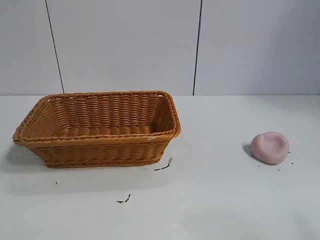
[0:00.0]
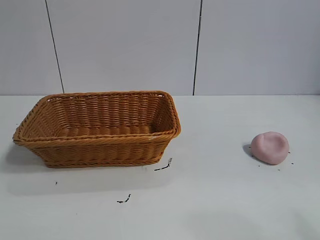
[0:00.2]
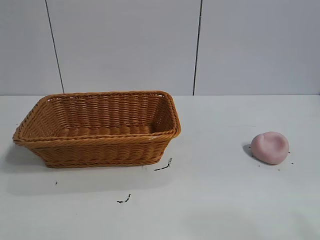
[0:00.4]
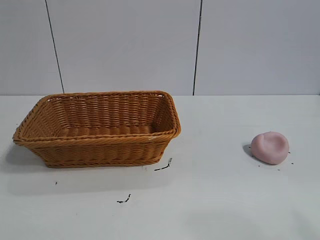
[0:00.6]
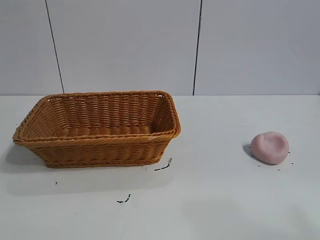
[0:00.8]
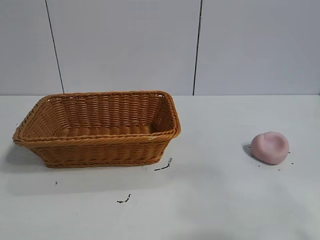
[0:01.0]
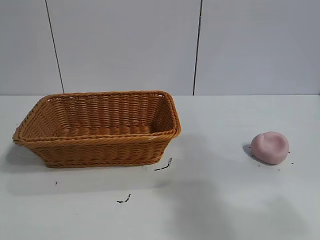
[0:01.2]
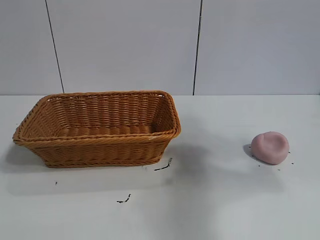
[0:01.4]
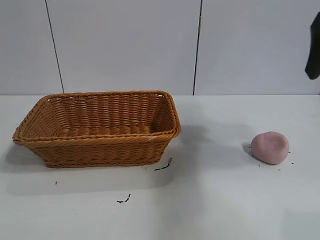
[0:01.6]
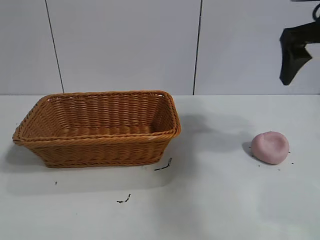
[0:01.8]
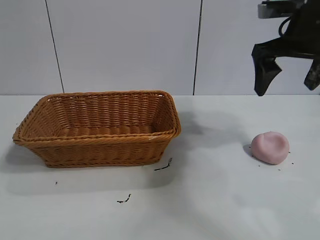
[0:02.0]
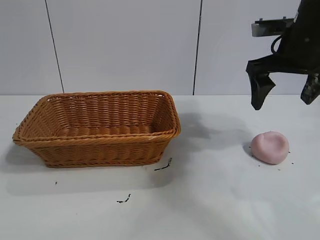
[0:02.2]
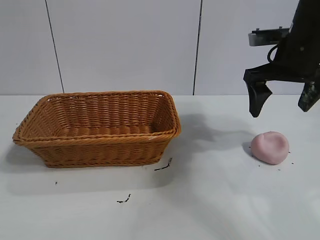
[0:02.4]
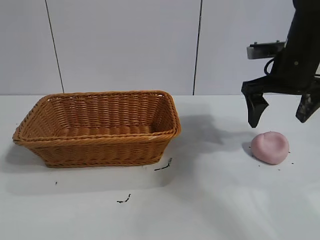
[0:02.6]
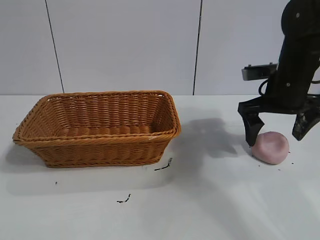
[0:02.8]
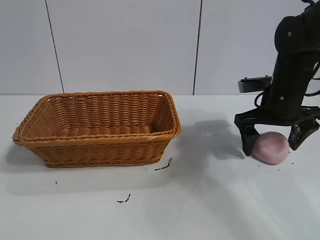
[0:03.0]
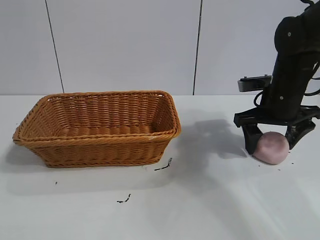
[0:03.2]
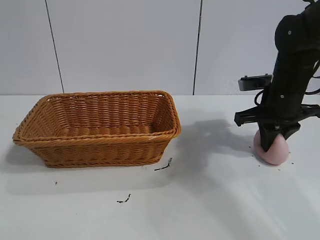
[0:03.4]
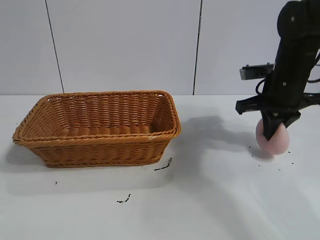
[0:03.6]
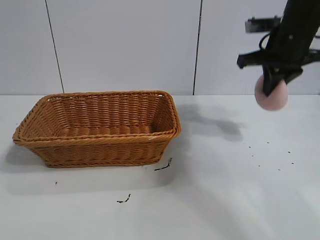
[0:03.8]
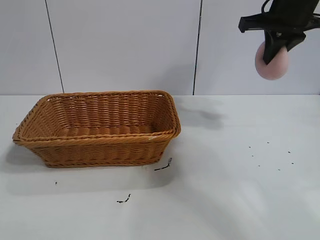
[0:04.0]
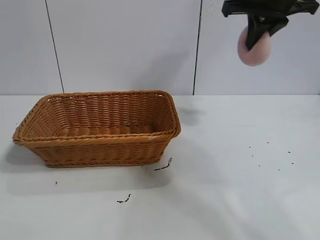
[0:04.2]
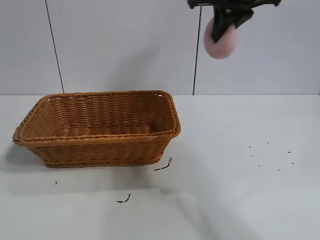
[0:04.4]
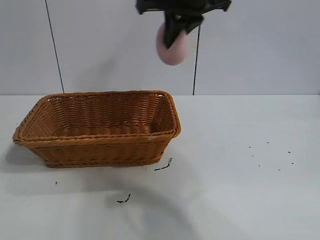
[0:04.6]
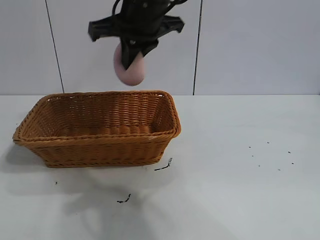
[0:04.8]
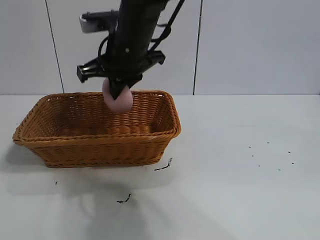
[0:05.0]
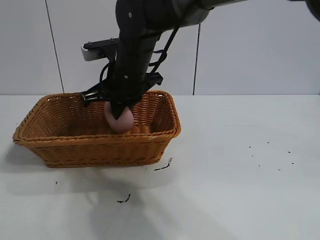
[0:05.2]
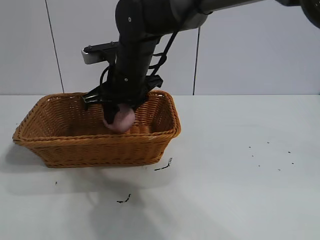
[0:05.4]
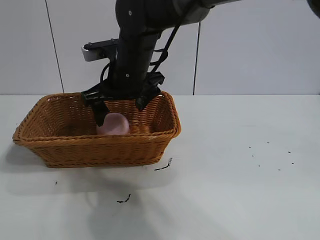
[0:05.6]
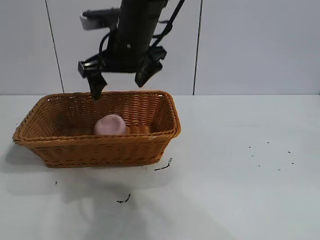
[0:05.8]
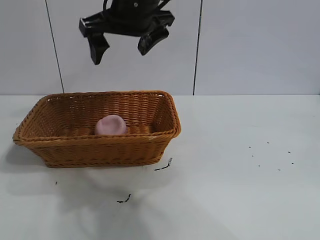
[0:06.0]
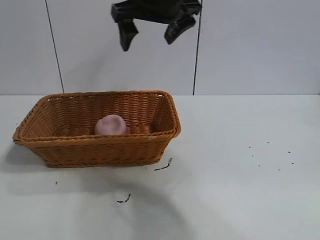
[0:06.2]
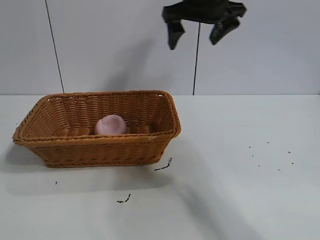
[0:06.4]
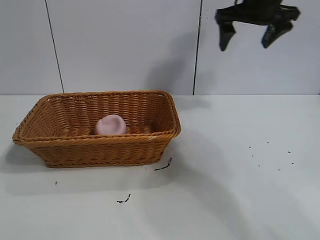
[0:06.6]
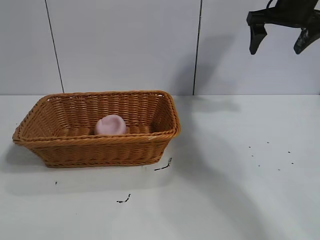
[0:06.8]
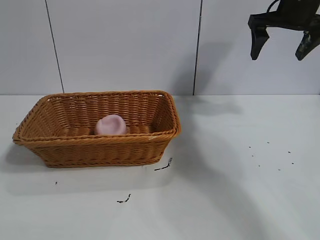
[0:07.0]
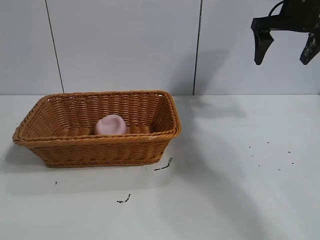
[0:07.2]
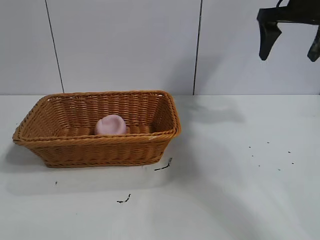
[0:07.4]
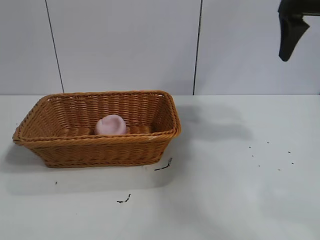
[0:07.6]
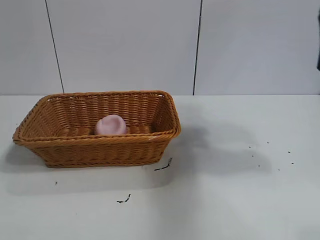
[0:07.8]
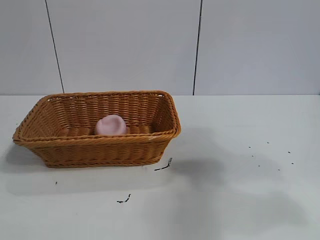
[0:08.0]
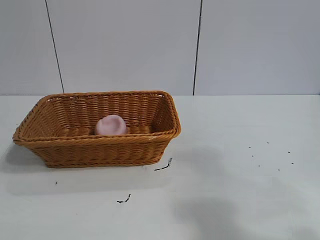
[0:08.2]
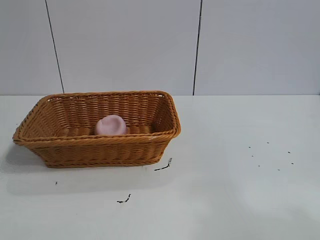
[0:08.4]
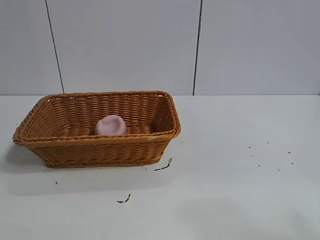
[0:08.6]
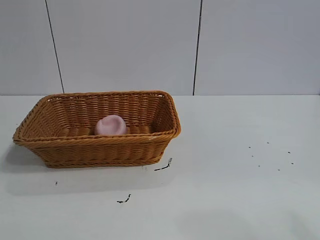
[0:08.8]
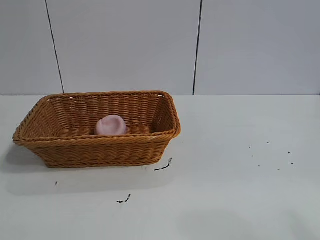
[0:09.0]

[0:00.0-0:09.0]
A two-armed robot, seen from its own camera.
Task of the whole recording: pick up the peach and put it into the basket.
Step, 0:00.6 to 0:03.4: Grasp the peach with right gripper.
Step, 0:03.6 to 0:05.4: Place the peach in the basket with right gripper.

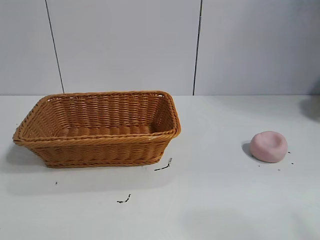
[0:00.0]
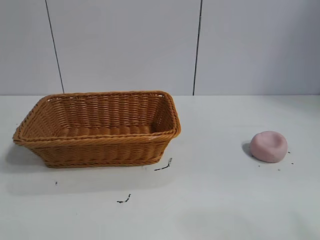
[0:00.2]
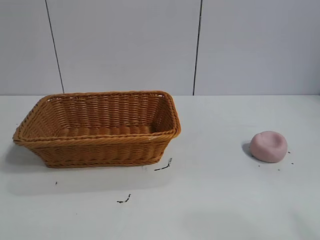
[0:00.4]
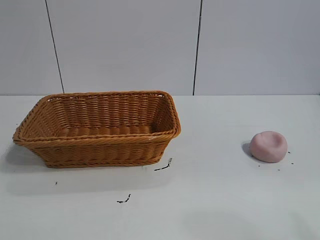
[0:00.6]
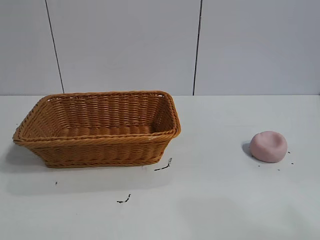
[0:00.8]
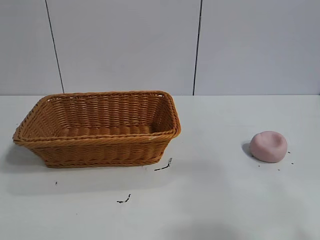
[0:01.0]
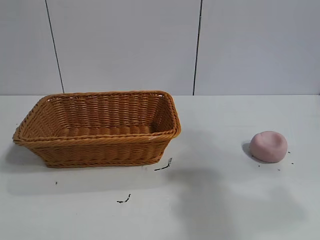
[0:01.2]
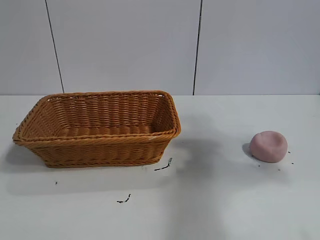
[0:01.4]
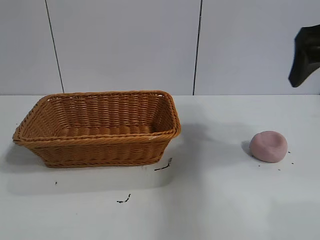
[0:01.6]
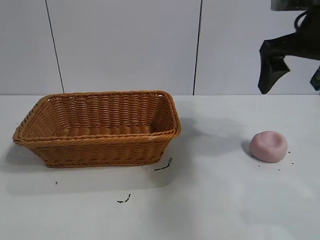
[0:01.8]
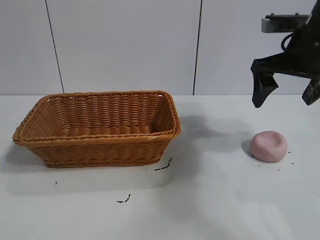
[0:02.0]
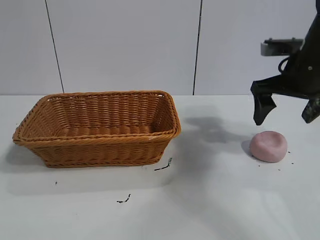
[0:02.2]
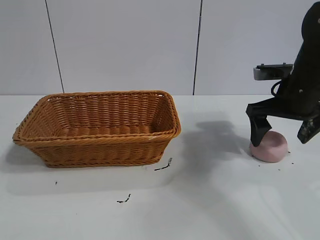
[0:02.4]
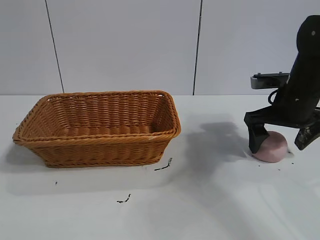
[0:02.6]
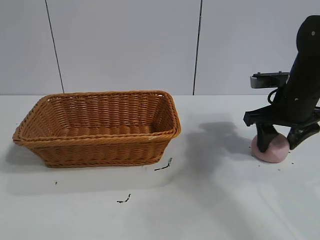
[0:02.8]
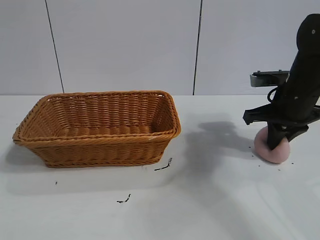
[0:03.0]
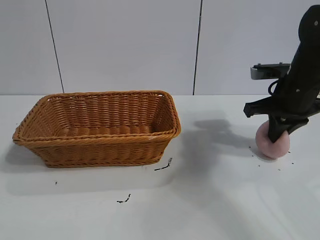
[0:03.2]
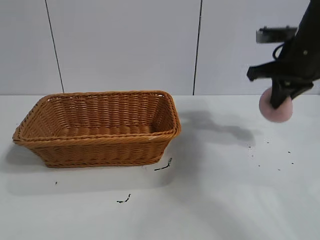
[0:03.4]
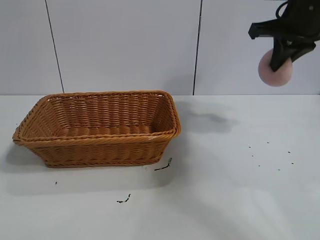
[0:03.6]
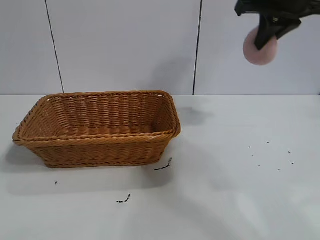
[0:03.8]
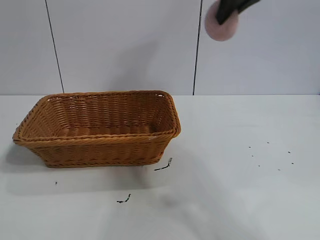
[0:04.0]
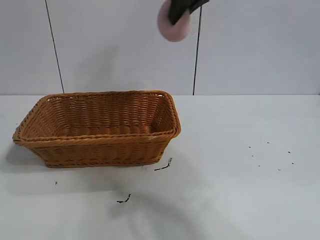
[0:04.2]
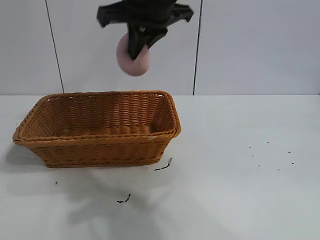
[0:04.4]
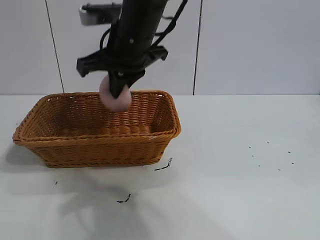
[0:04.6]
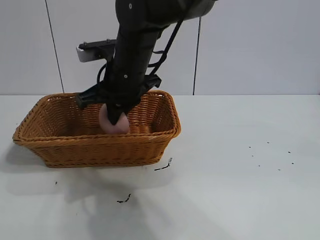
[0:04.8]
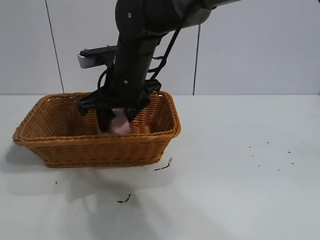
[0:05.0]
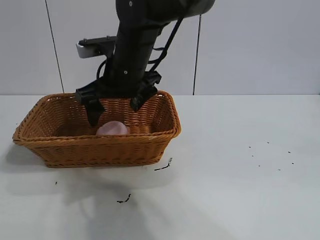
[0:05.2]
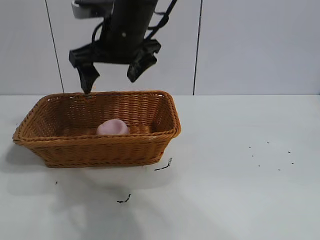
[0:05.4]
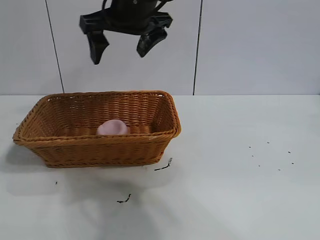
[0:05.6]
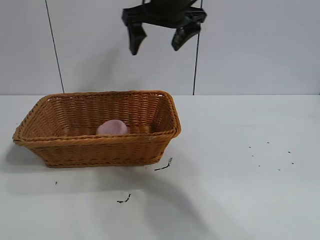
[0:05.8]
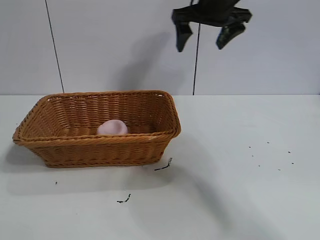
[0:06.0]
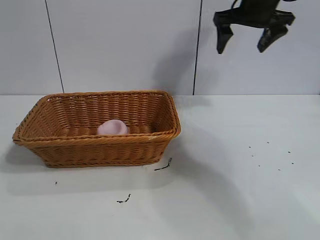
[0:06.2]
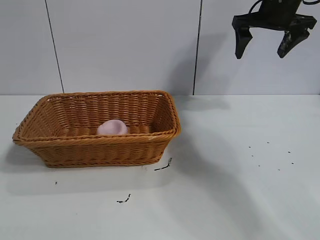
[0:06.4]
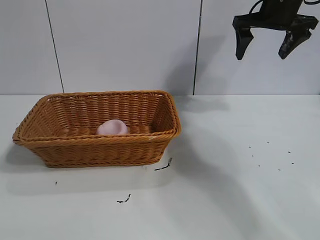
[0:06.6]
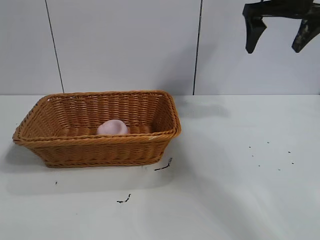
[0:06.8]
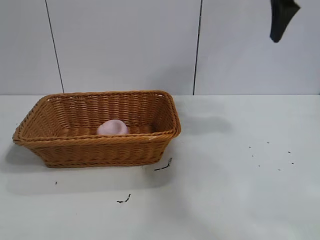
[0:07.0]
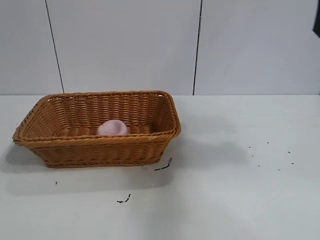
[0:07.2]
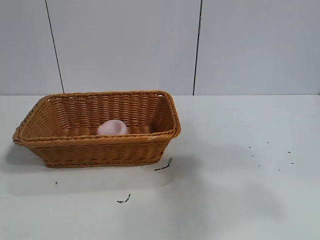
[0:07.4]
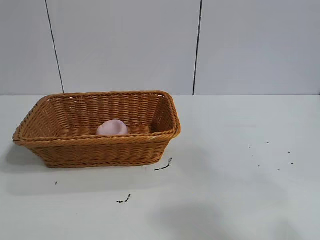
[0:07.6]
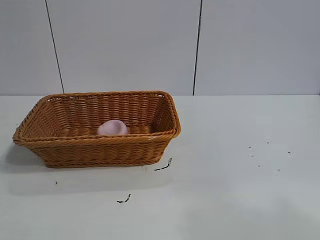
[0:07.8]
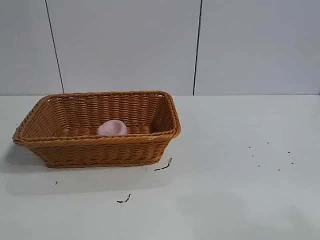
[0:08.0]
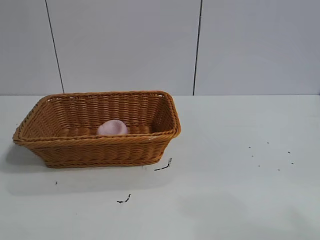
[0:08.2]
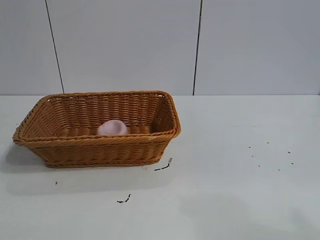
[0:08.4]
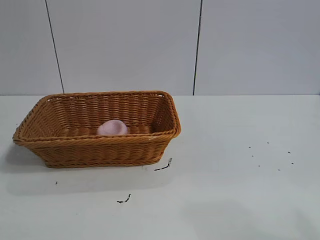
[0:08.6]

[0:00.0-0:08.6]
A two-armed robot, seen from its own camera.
Task of the whole recording: pick up the peach and put it into the basket.
Step, 0:00.8 to 0:03.0: Grasp the peach with right gripper.
Step, 0:03.2 to 0:05.0: Place the peach in the basket with right gripper.

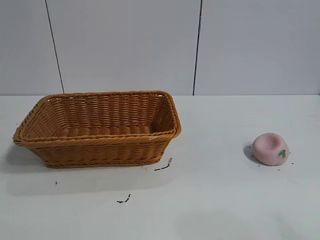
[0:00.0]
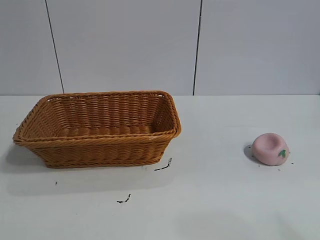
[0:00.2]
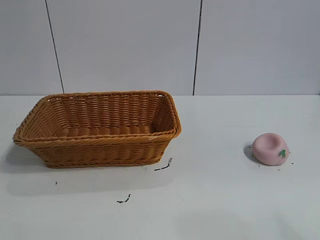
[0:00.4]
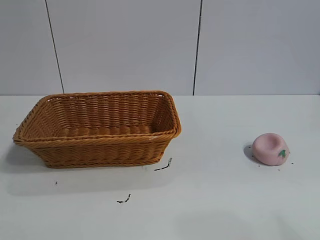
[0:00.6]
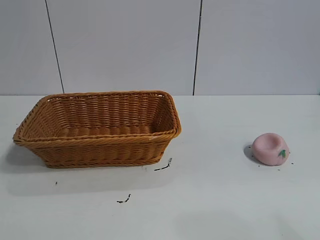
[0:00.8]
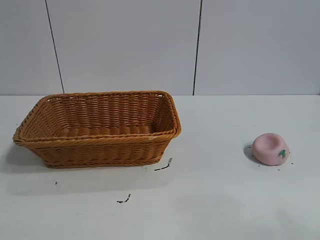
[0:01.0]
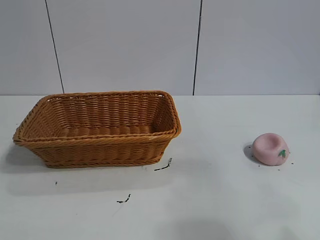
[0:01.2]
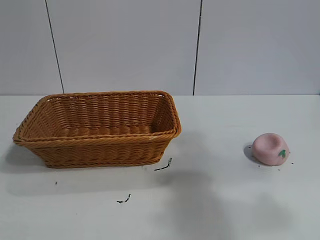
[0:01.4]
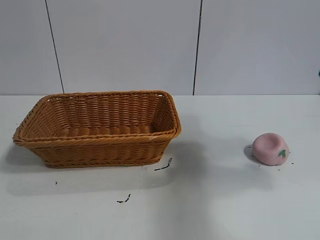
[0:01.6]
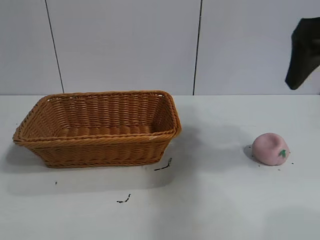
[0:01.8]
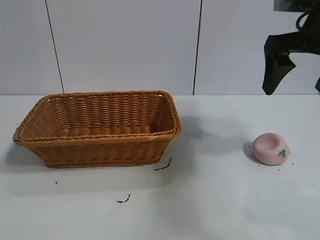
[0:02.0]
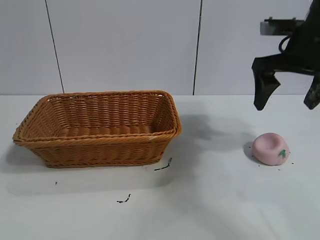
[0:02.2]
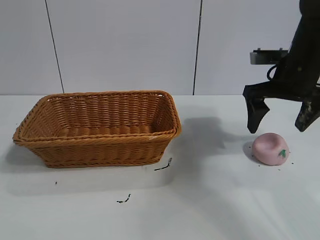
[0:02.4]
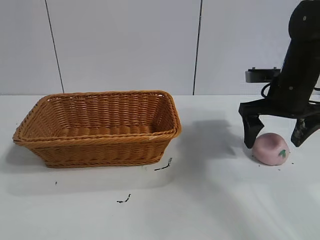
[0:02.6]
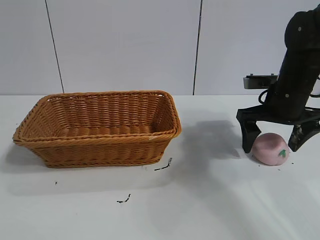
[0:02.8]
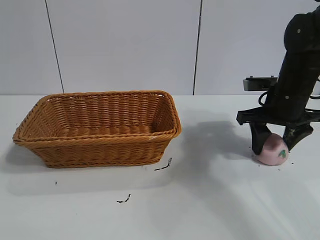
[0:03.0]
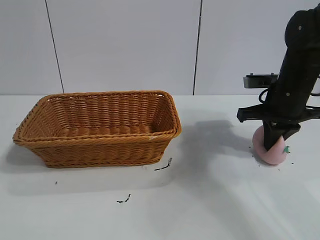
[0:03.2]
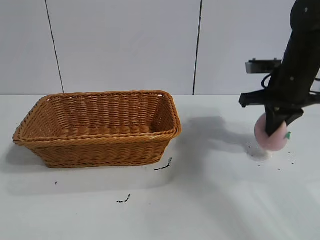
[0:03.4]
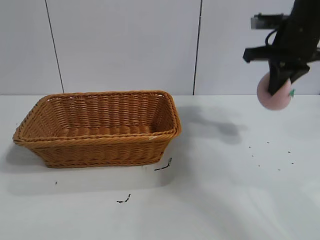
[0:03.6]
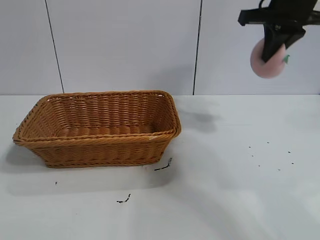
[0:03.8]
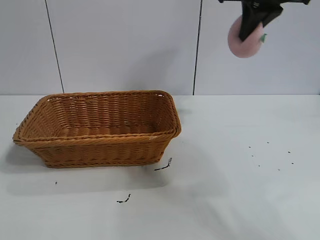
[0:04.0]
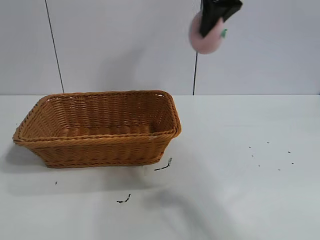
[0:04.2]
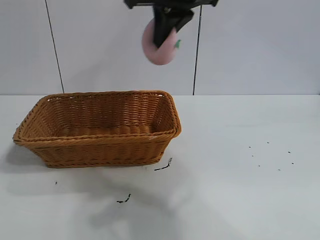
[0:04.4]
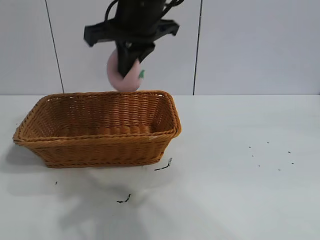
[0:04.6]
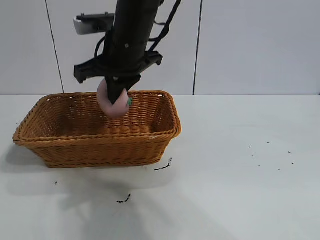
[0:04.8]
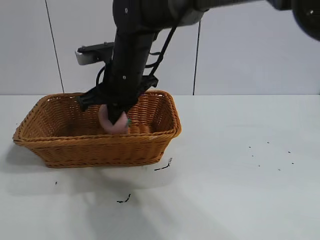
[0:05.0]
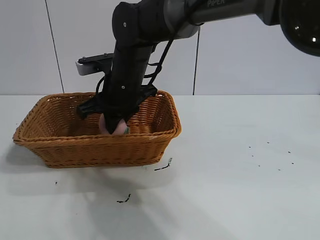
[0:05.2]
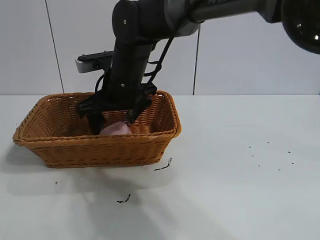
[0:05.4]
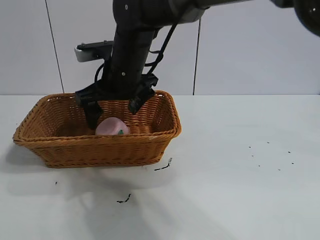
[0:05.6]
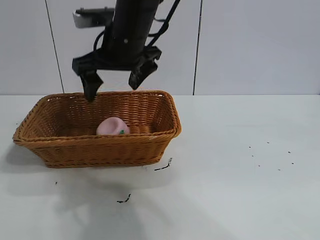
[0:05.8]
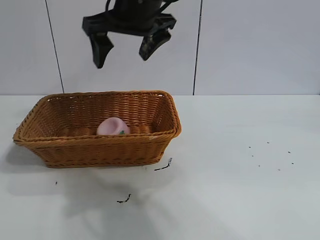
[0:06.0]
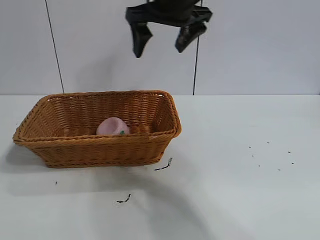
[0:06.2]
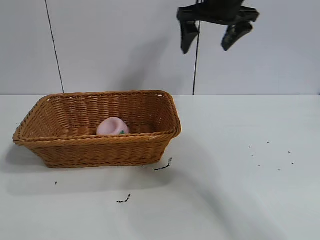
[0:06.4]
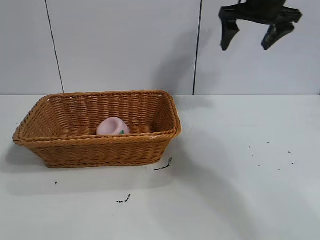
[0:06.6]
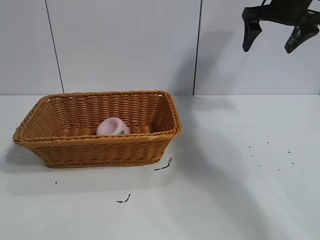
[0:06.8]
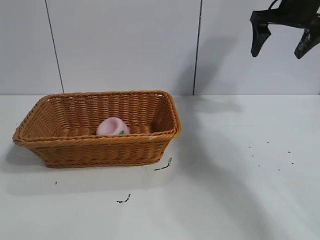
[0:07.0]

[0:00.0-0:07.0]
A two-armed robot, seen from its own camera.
Task of the whole recording: pick up the peach and put it into the basket.
Step, 0:01.0 to 0:03.2: Grasp the peach with right gripper.
Step, 0:03.4 to 0:05.6: Place the peach in the basket with right gripper.
